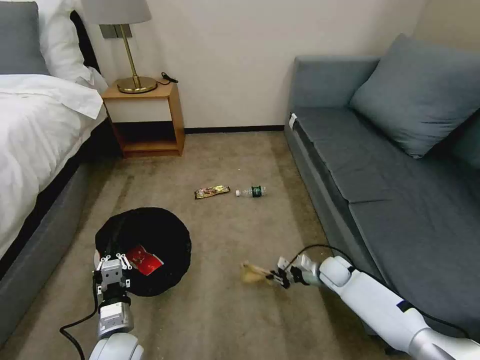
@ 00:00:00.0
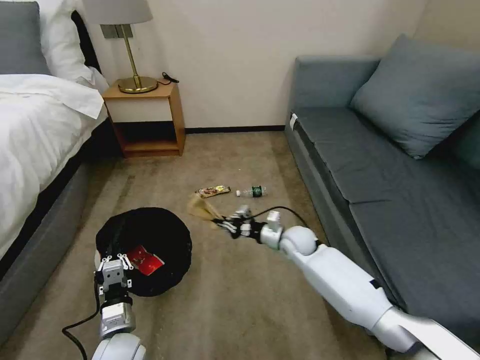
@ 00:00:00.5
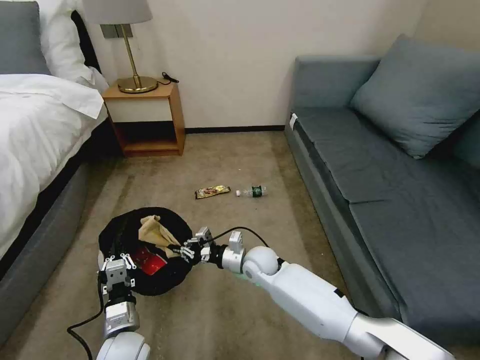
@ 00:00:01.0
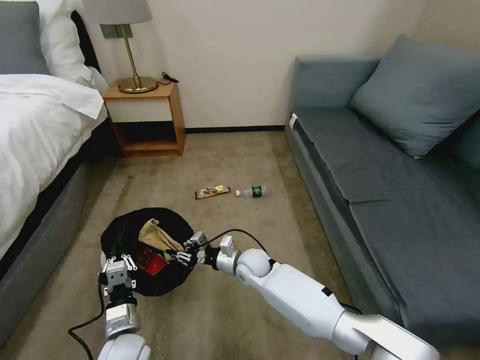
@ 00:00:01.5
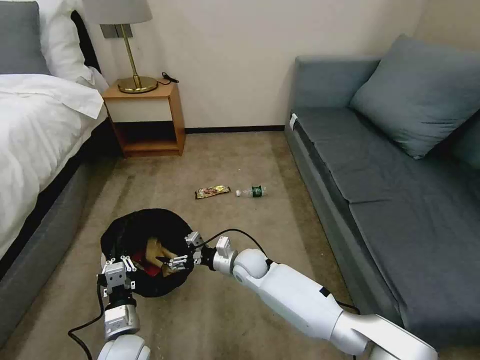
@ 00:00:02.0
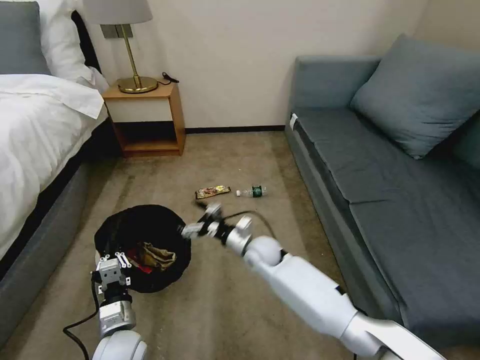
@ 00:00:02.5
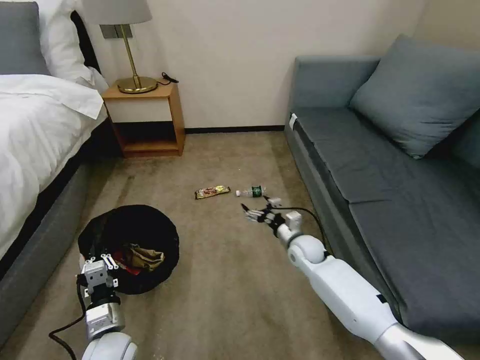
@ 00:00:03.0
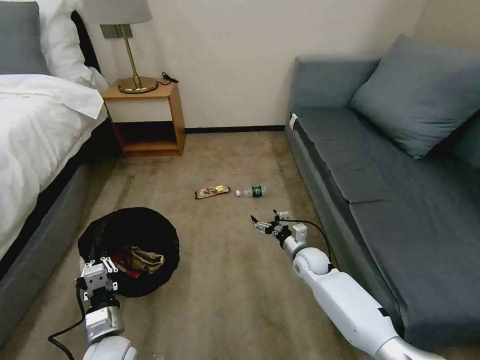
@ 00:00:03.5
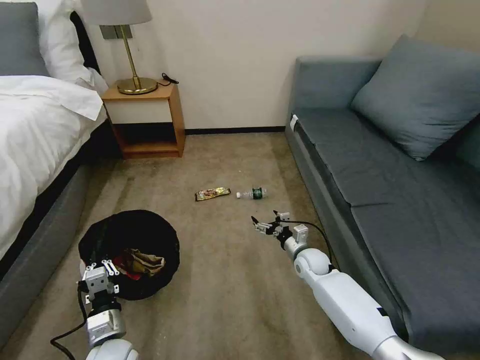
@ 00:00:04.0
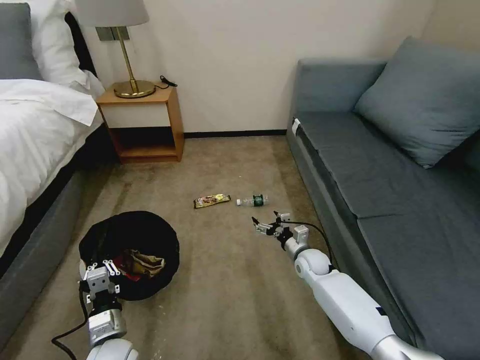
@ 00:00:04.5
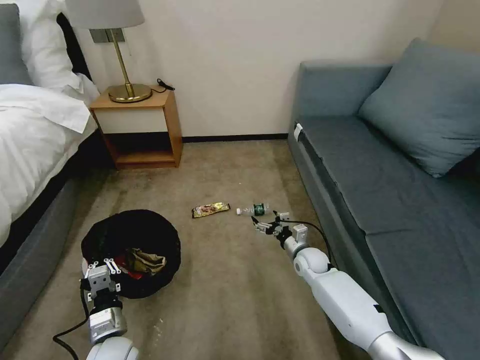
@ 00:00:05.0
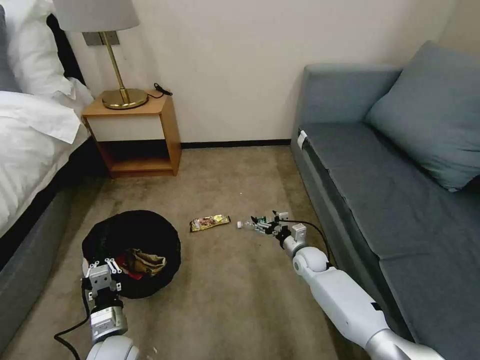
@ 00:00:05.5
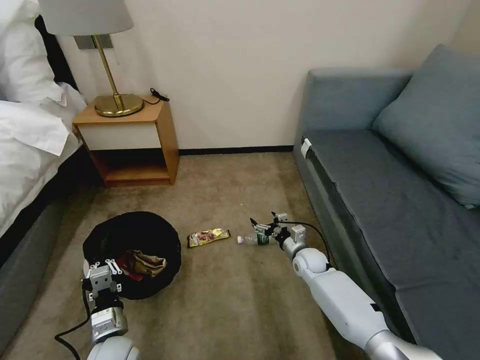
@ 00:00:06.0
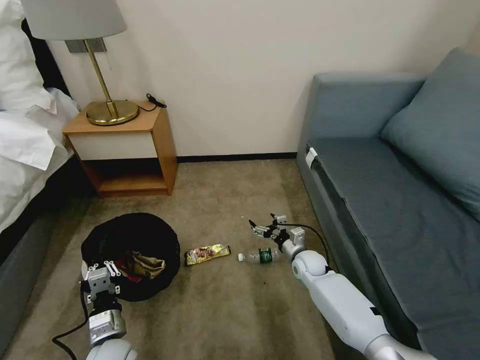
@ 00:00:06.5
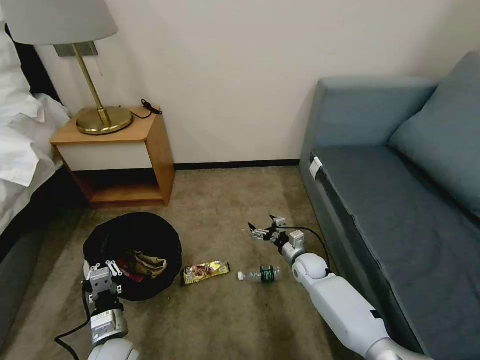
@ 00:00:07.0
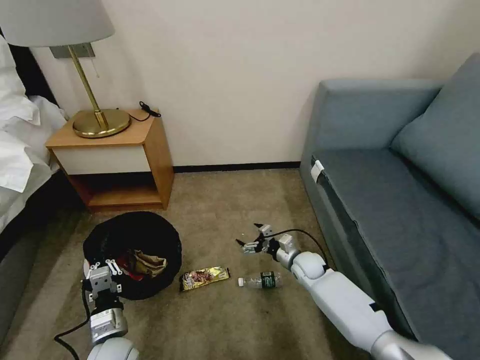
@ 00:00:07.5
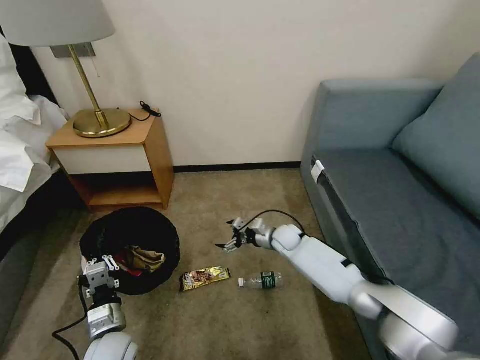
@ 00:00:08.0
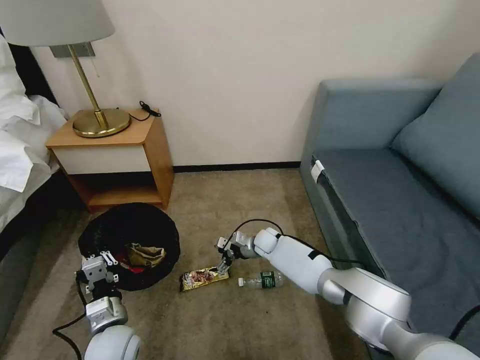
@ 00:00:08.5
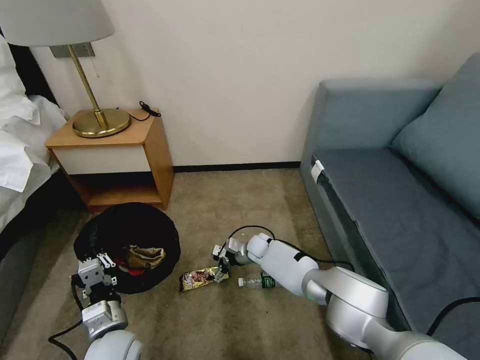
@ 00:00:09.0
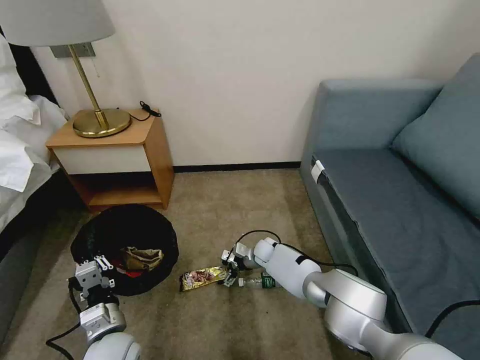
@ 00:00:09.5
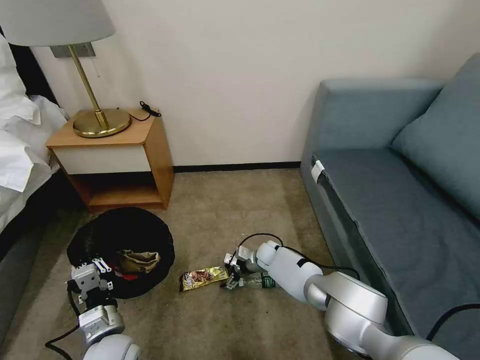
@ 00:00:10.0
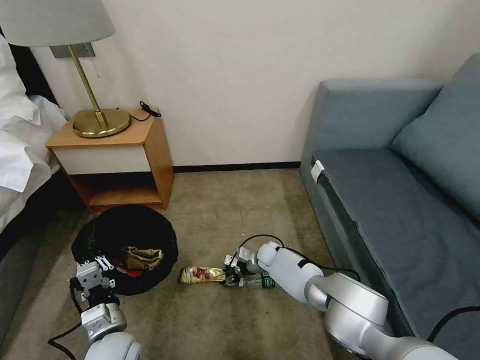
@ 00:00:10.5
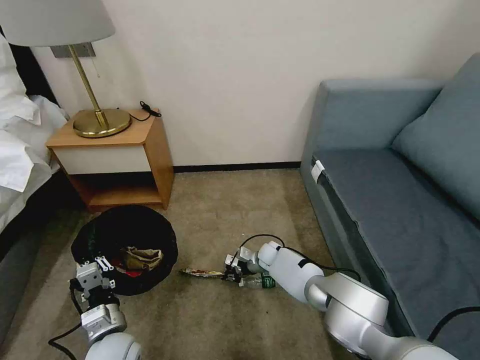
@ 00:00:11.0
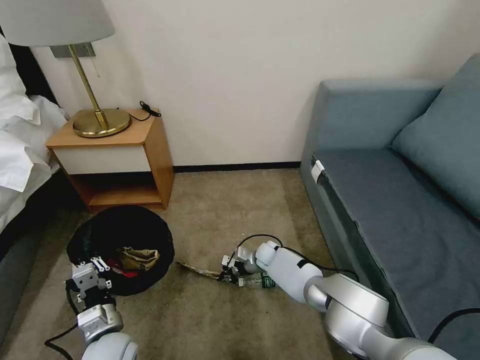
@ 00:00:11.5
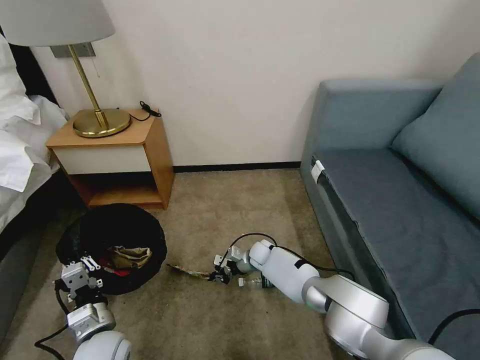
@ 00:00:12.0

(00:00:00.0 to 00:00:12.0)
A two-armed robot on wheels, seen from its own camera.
Task of the whole recording: Pick up the trash bin, then pick up the garbage on the floor and place it into the trash bin.
00:00:00.0 - 00:00:02.0: The right gripper moves to the left, about 25 cm, and opens.
00:00:02.0 - 00:00:04.0: The right gripper travels to the right by about 20 cm.
00:00:06.0 - 00:00:08.0: The right gripper shifts roughly 10 cm to the left and forward.
00:00:08.0 - 00:00:10.0: The right gripper moves downward, about 10 cm.
00:00:10.0 - 00:00:12.0: The right gripper closes up.

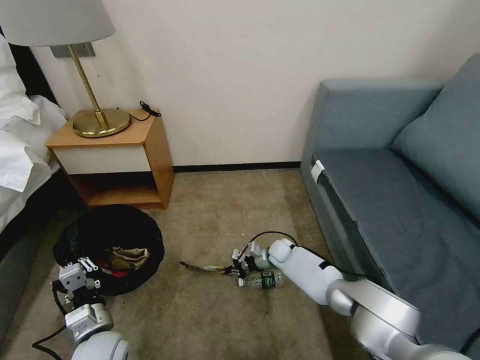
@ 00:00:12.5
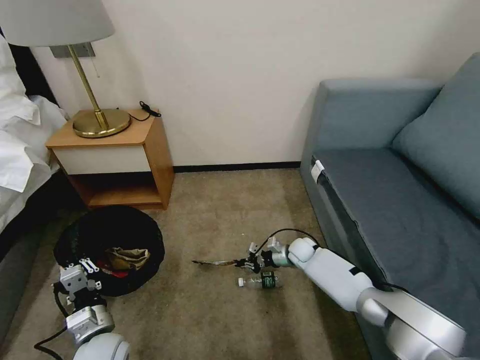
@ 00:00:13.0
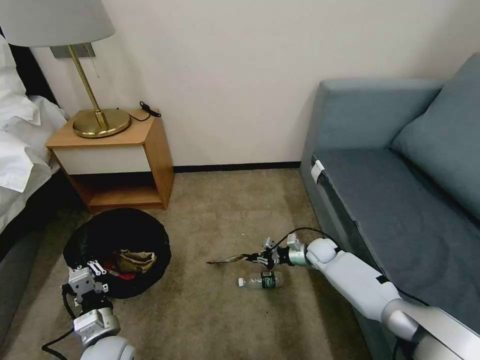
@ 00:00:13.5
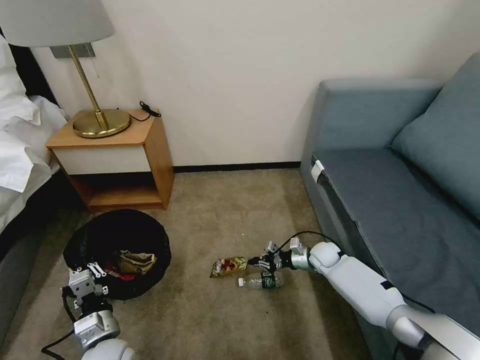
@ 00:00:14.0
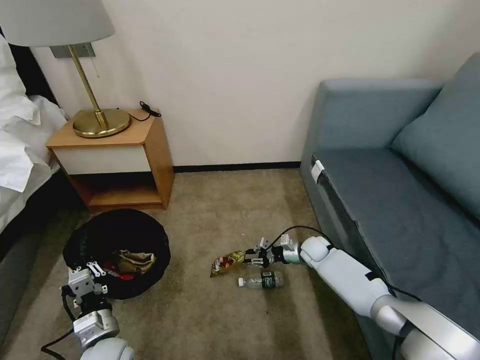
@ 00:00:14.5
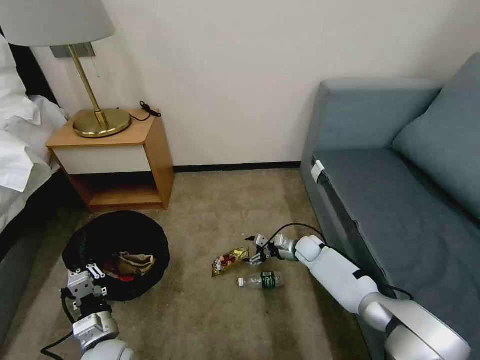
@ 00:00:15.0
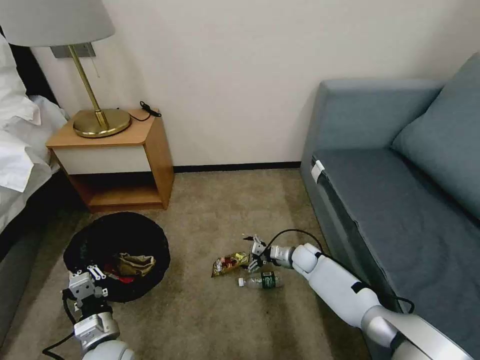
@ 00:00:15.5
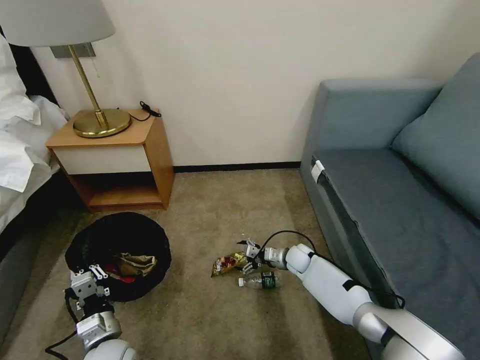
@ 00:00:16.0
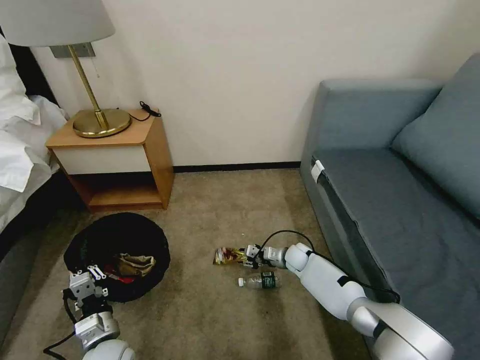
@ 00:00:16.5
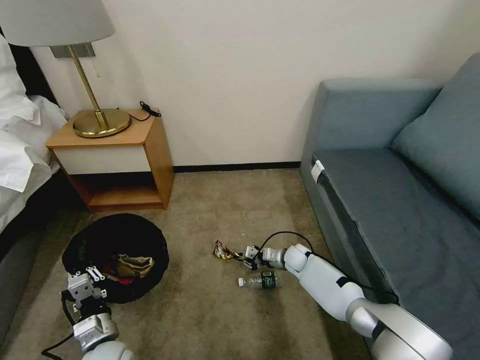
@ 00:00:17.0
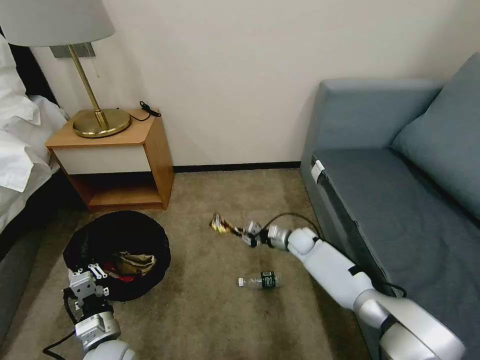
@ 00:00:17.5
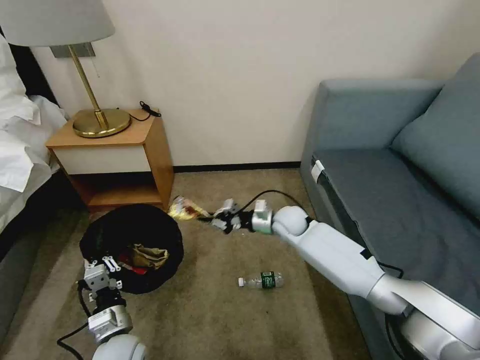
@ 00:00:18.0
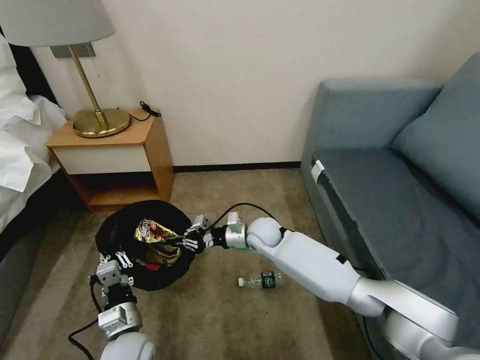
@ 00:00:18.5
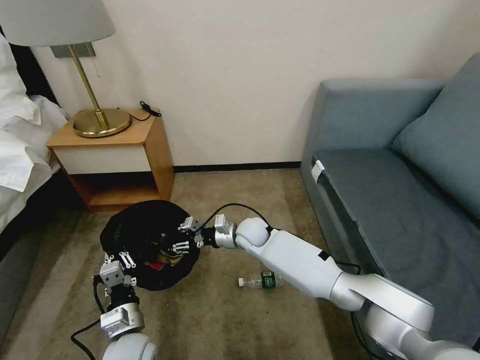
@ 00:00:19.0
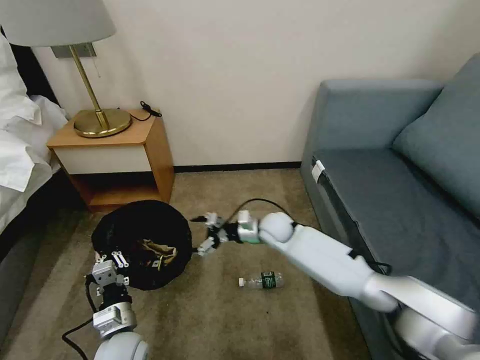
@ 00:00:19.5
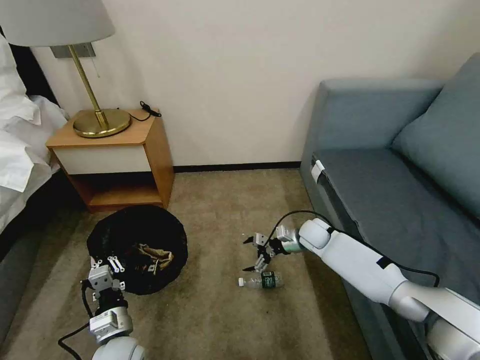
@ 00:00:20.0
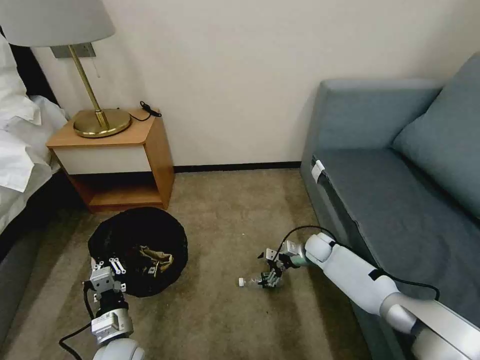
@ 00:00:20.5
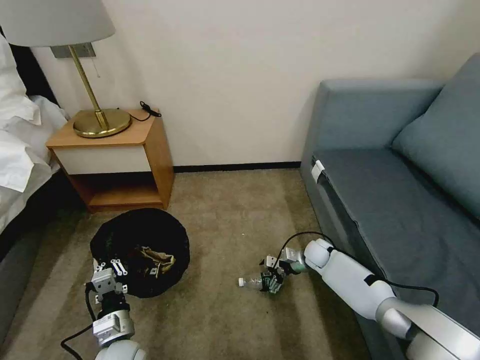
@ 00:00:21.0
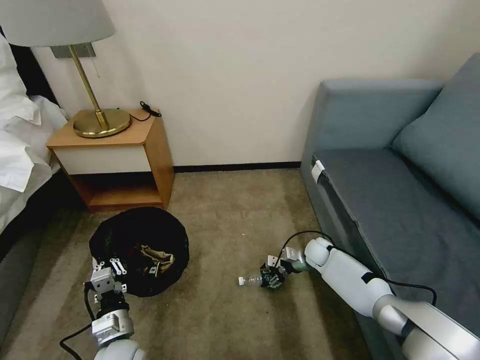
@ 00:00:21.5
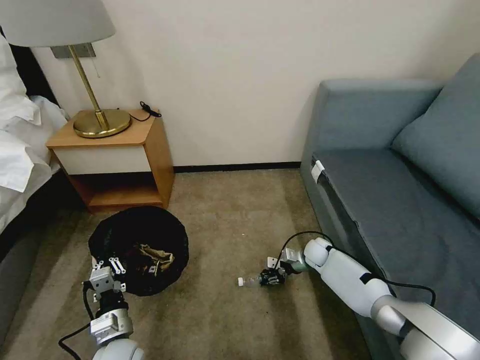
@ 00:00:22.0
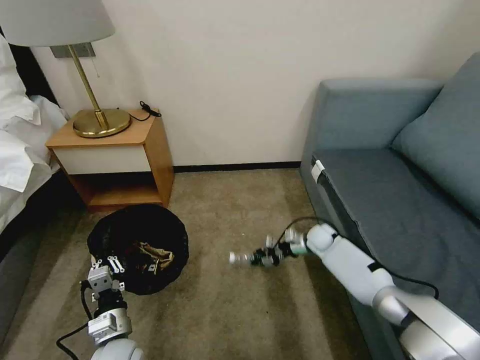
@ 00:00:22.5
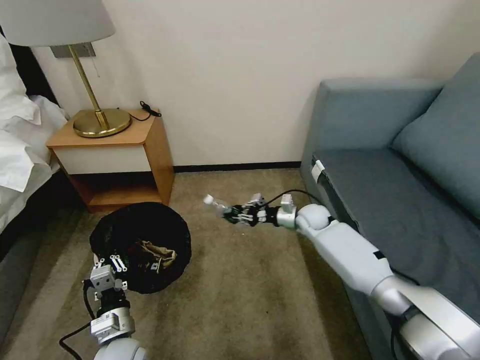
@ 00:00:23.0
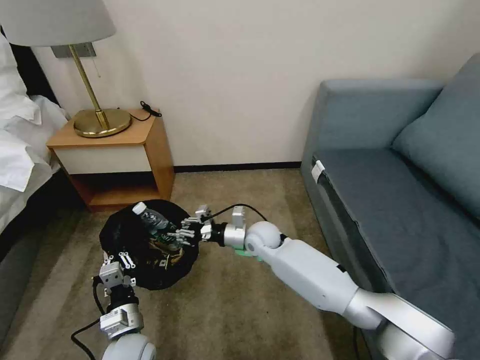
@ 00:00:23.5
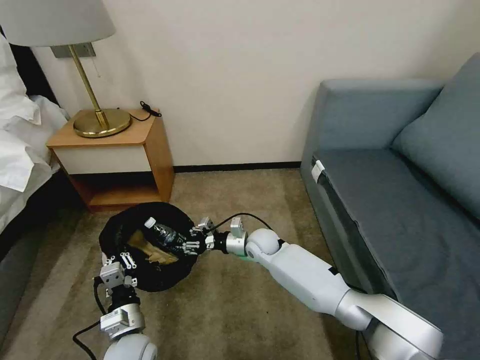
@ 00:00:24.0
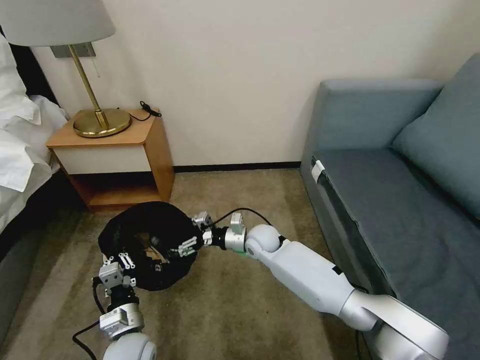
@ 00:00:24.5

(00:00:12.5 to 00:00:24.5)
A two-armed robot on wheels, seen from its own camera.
Task of the whole recording: Pick up the trash bin, then pick up the garbage on the floor and place it into the trash bin.
00:00:12.5 - 00:00:14.5: The right gripper moves to the right, some 10 cm.
00:00:14.5 - 00:00:16.5: The right gripper ends up some 5 cm from where it was, and opens, then closes once more.
00:00:16.5 - 00:00:18.5: The left gripper is displaced to the right by roughly 5 cm. Meanwhile the right gripper moves upward and to the left, some 20 cm.
00:00:18.5 - 00:00:20.5: The right gripper heads to the right, covering some 20 cm, and opens up.
00:00:20.5 - 00:00:22.5: The right gripper ends up roughly 5 cm from where it was, and closes up.
00:00:22.5 - 00:00:24.5: The right gripper heads to the left and upward, covering some 20 cm, and opens.

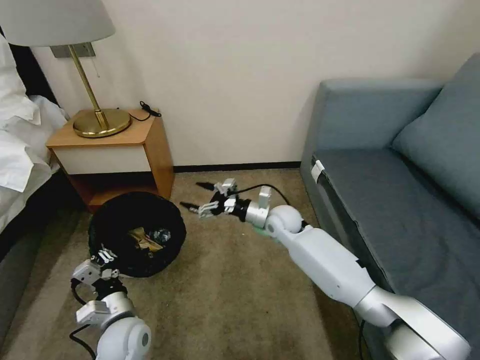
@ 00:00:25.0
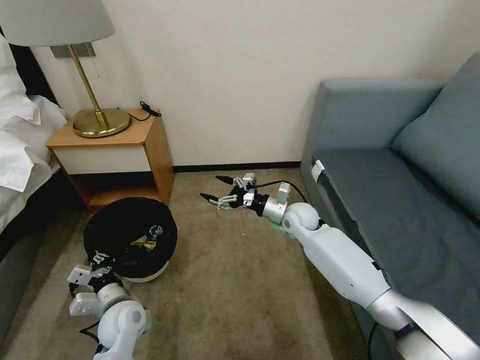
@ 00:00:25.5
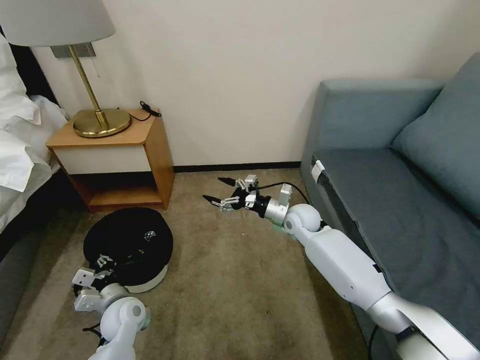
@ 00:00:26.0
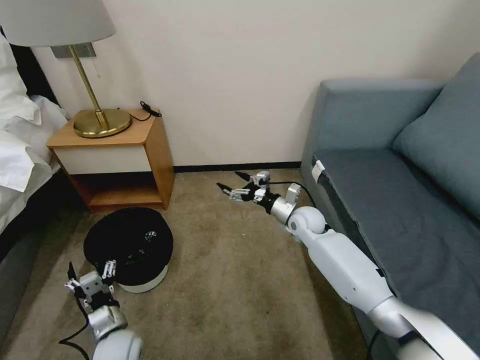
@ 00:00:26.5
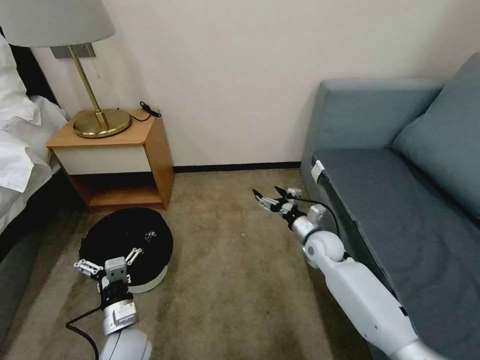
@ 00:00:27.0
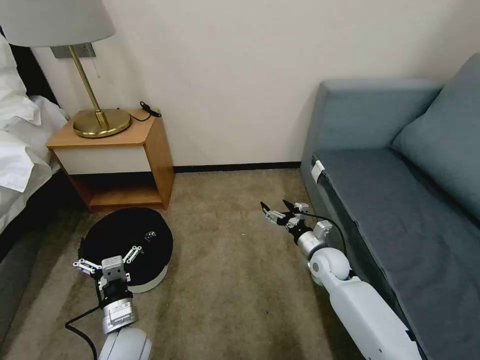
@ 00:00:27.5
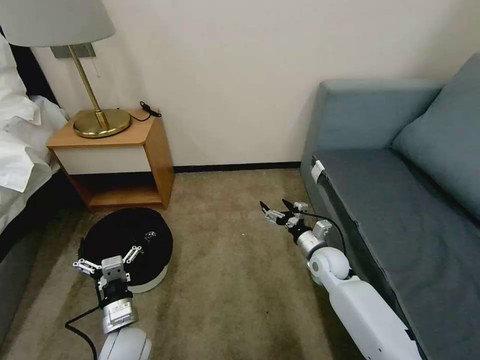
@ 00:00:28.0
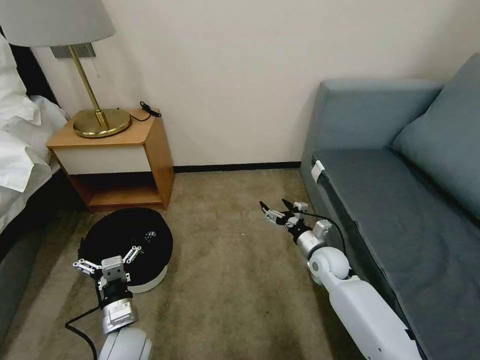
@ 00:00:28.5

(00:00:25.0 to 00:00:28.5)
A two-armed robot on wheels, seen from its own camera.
Task of the whole recording: Pick up the trash bin, then pick up the garbage on the floor and place it into the trash bin.
00:00:25.0 - 00:00:27.0: The right gripper is displaced to the right, backward and downward by about 15 cm. Meanwhile the left gripper opens.
00:00:27.0 - 00:00:28.5: The grippers stay close to where they were, moving slightly.
